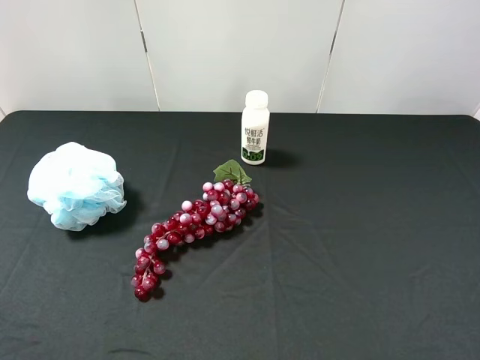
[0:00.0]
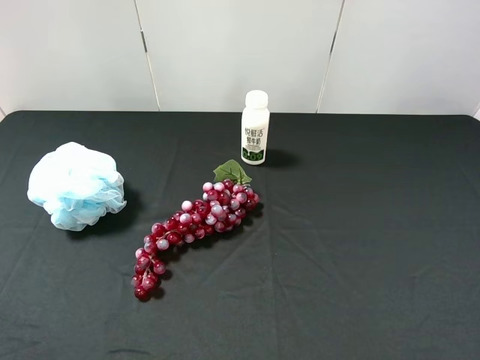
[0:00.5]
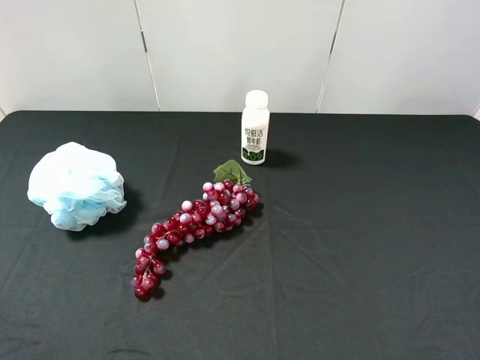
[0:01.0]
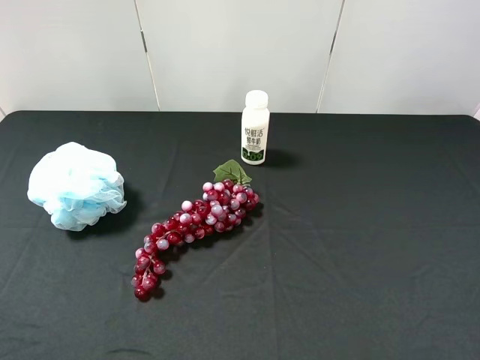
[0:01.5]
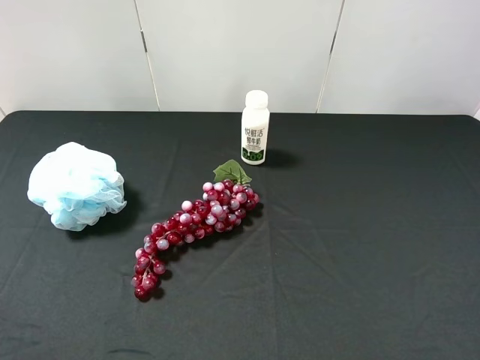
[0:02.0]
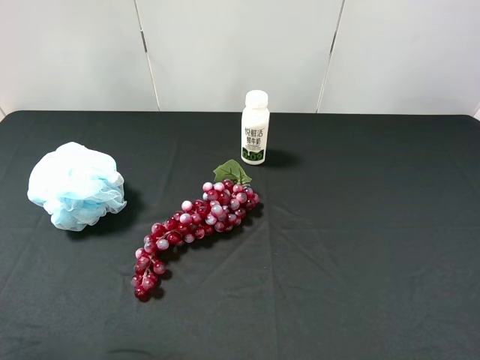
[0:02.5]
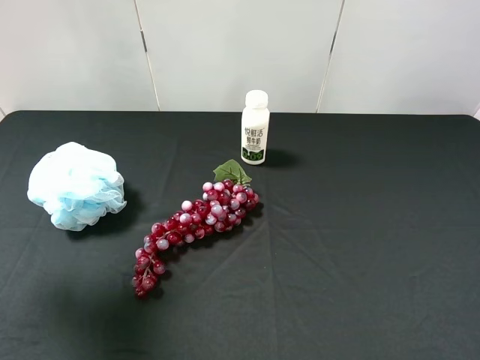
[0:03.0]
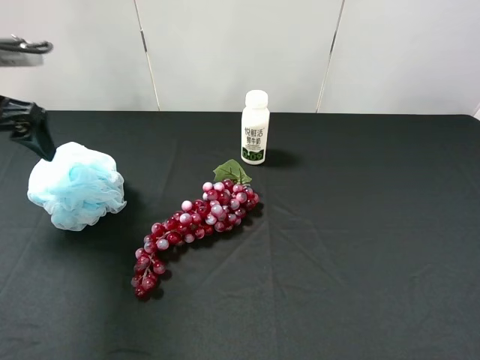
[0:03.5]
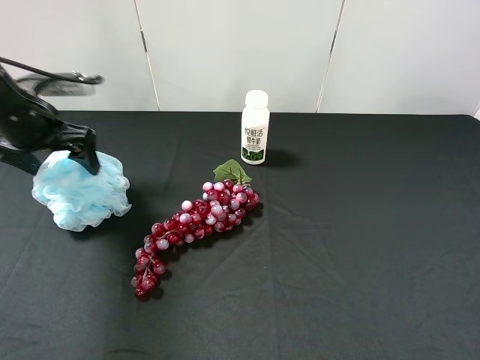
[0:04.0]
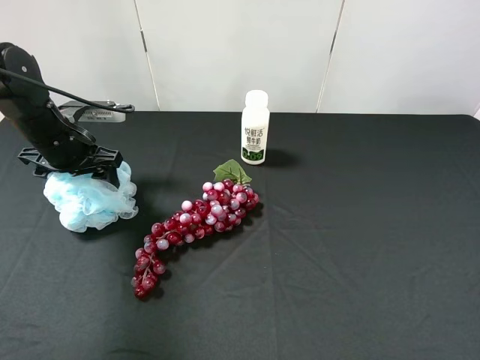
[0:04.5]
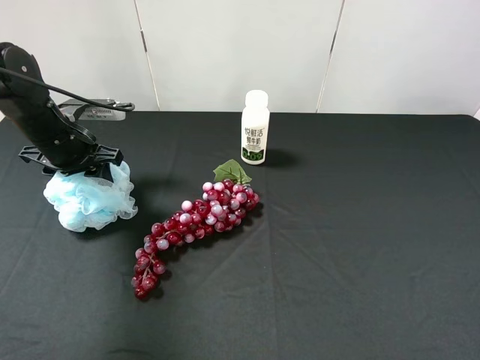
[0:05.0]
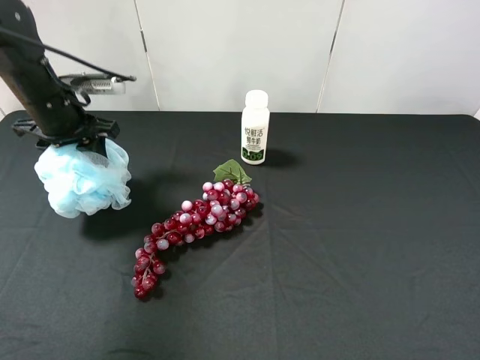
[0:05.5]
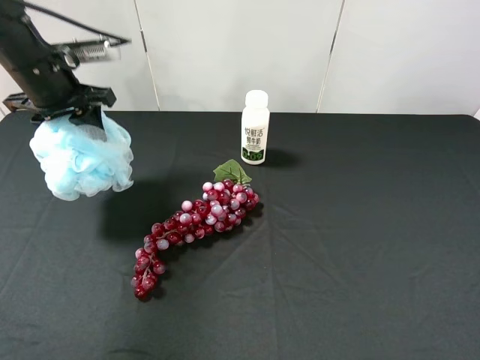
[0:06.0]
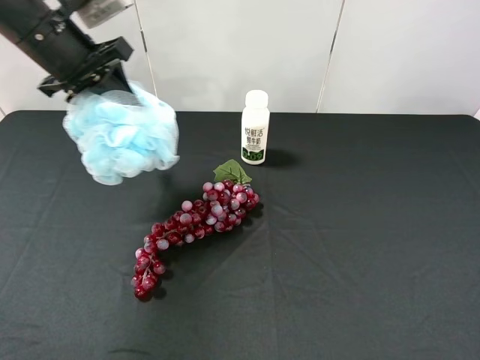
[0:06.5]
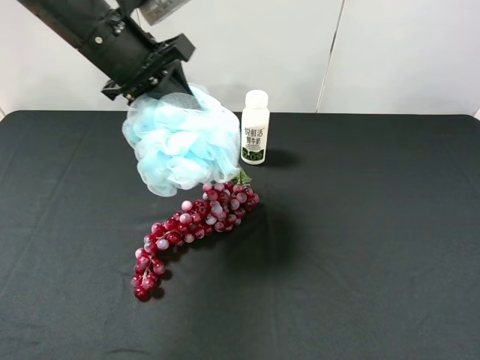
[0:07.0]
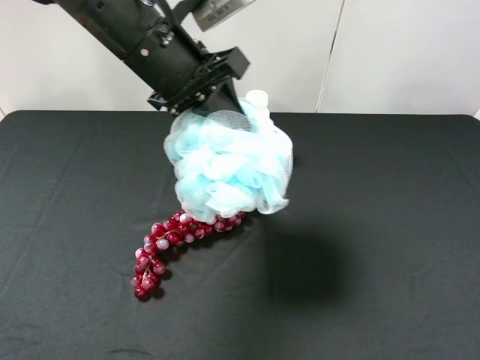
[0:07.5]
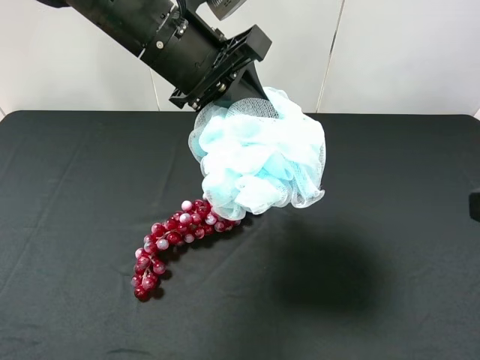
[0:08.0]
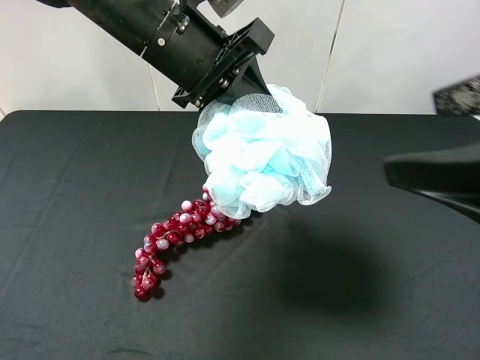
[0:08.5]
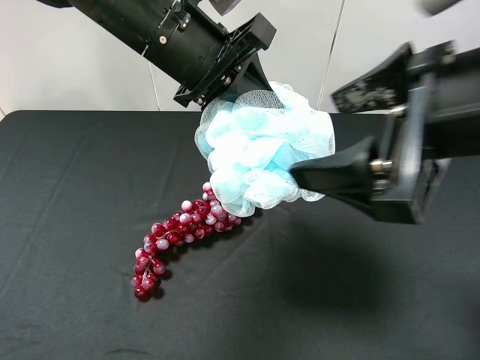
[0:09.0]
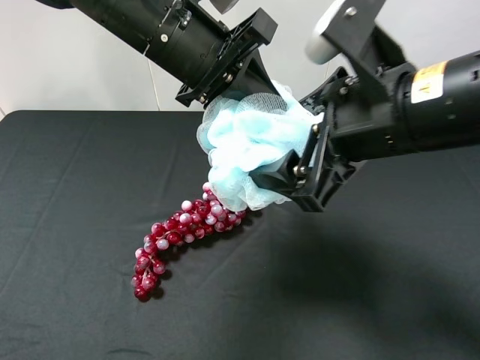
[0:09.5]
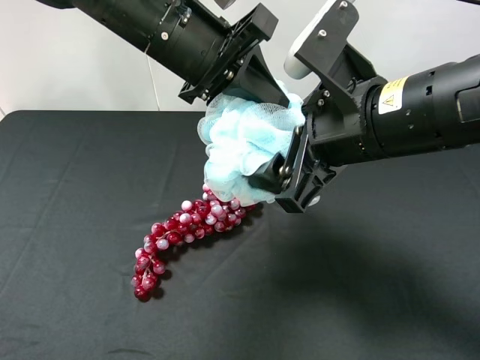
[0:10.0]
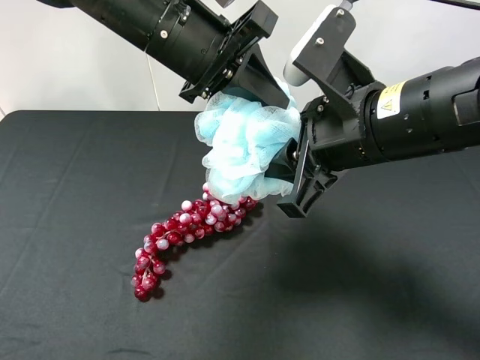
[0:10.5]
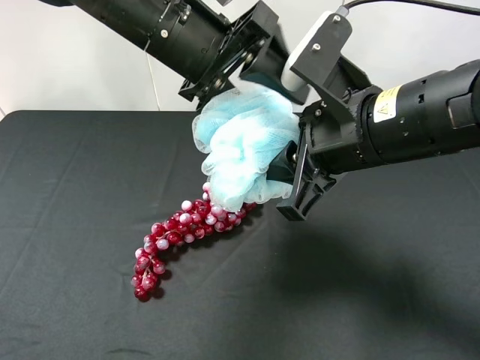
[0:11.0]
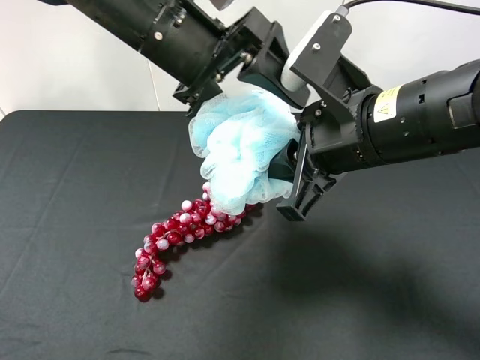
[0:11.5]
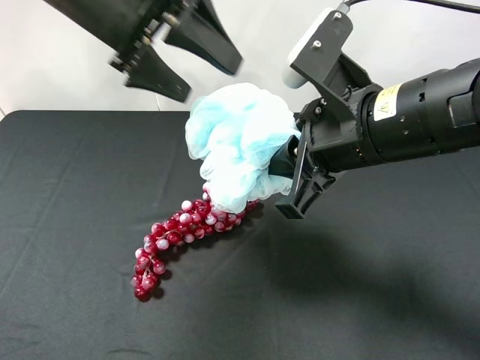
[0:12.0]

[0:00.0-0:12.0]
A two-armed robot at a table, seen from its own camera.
Task of the whole recording: use the left gripper to pick up the item and transfer it from the left gripper to the right gripper.
0:00.0 to 0:02.0: Both grippers stay put.
0:02.0 to 0:04.0: The left gripper heads forward, covering approximately 35 cm.
0:04.0 to 0:06.0: The left gripper is displaced upward by some 5 cm, and closes.
0:06.0 to 0:08.0: The right gripper ends up about 10 cm from where it was, while the left gripper heads to the right and backward, covering some 20 cm.
0:08.0 to 0:10.0: The right gripper heads to the left and forward, covering about 20 cm.
0:10.0 to 0:12.0: The right gripper closes, while the left gripper heads to the left, covering approximately 10 cm, and opens its fingers.

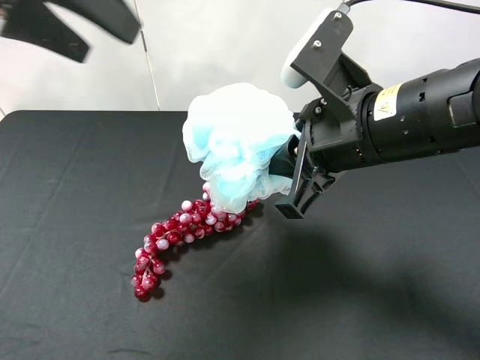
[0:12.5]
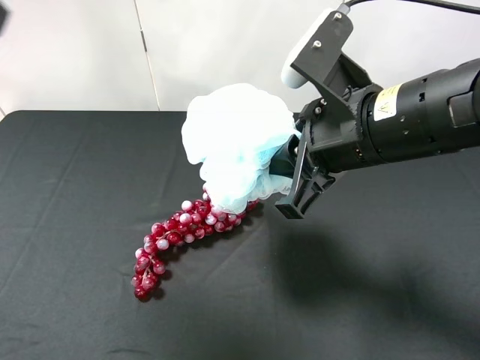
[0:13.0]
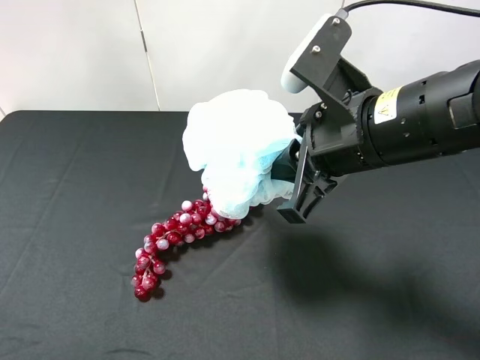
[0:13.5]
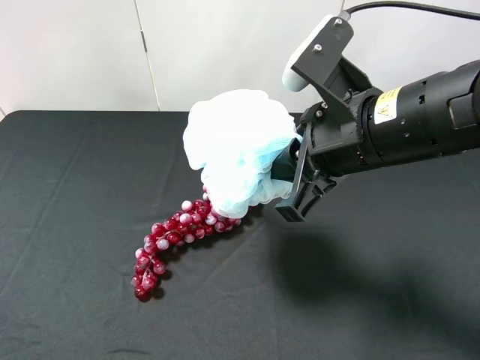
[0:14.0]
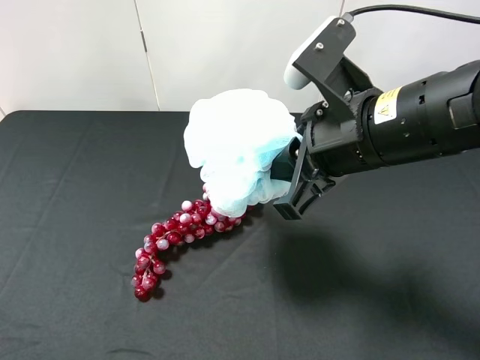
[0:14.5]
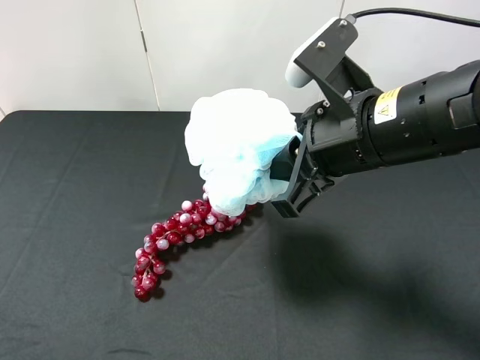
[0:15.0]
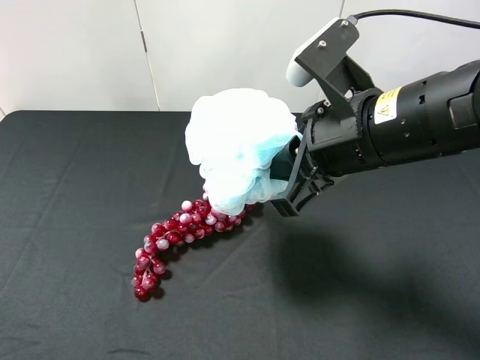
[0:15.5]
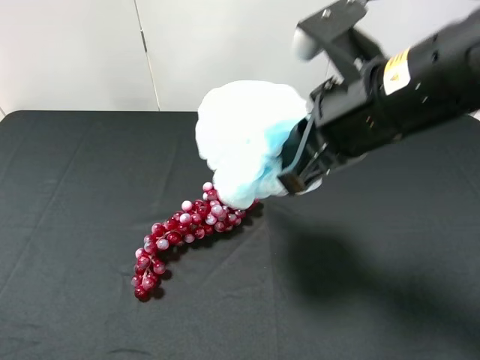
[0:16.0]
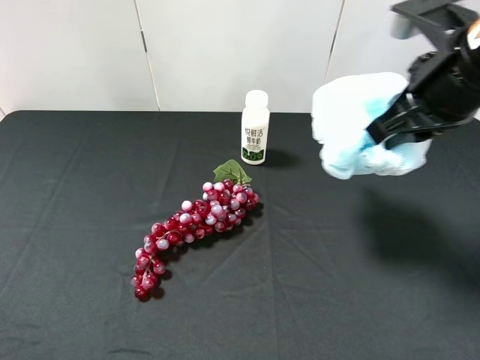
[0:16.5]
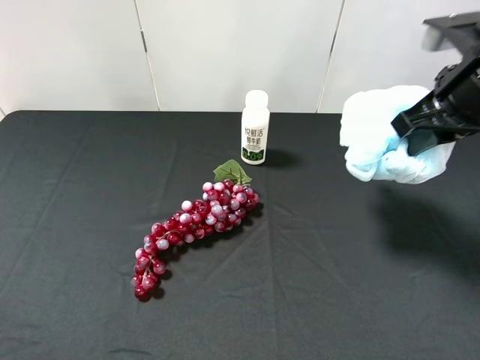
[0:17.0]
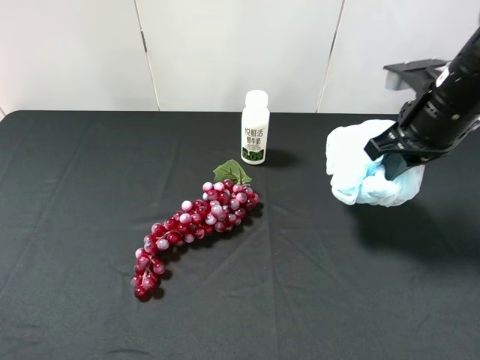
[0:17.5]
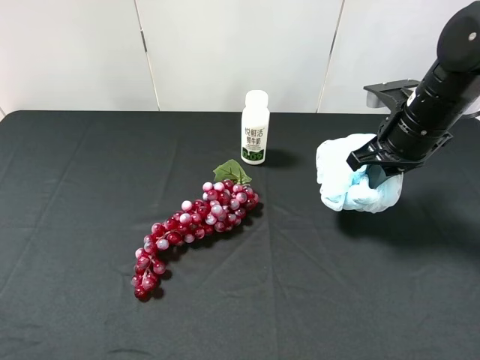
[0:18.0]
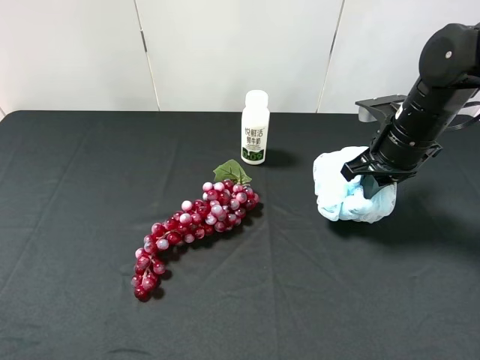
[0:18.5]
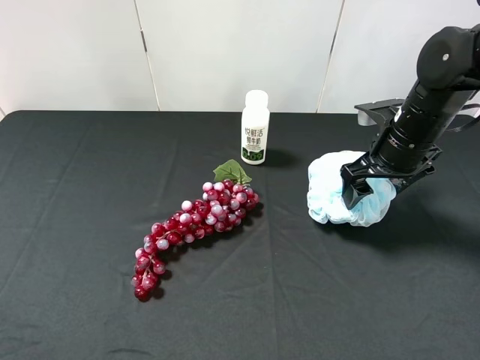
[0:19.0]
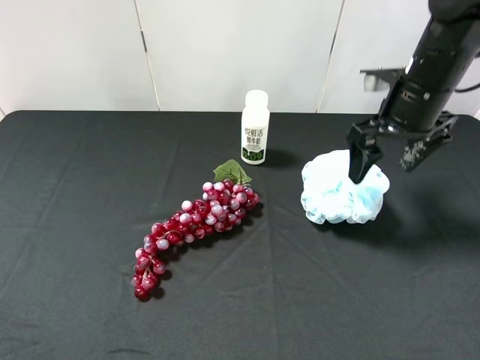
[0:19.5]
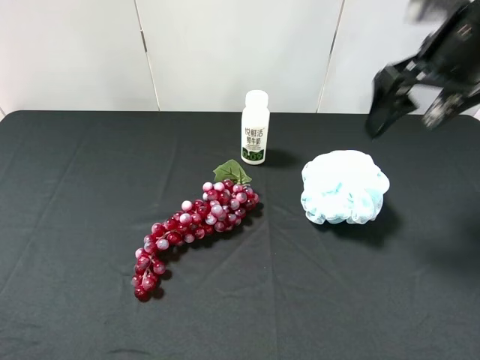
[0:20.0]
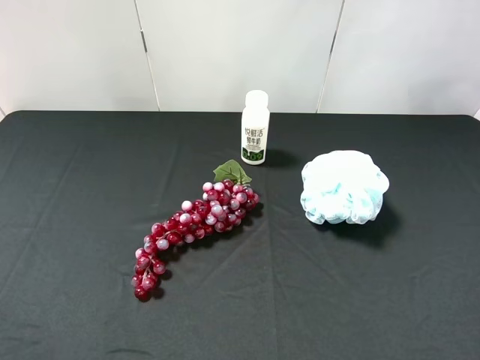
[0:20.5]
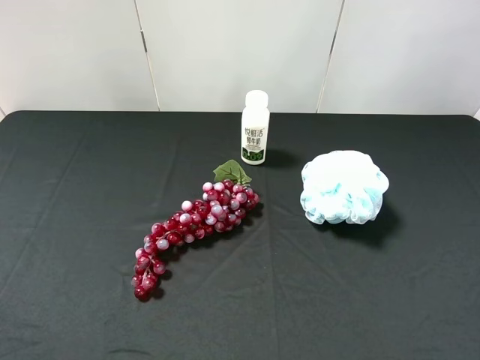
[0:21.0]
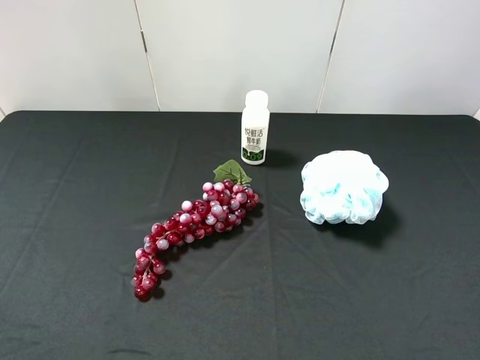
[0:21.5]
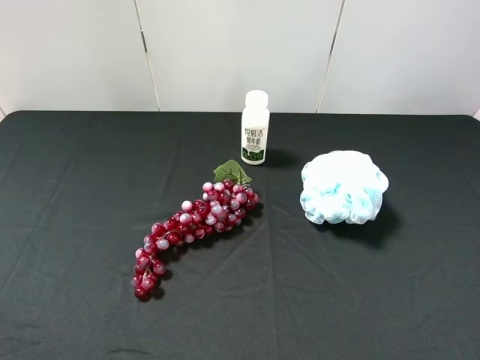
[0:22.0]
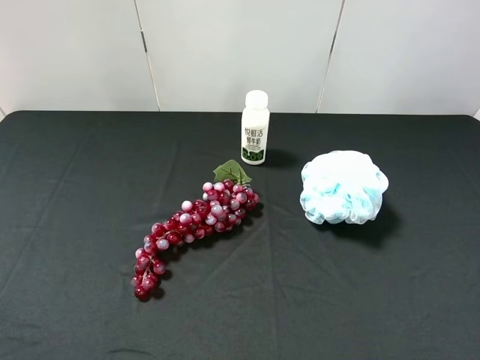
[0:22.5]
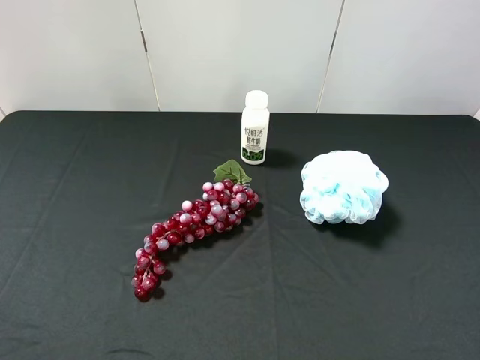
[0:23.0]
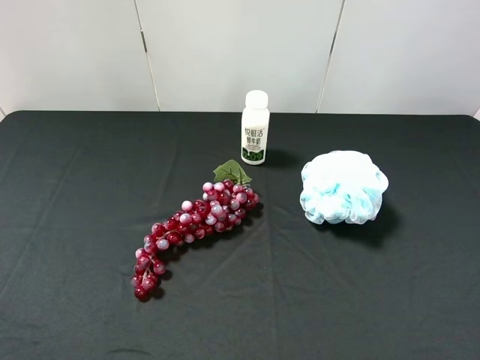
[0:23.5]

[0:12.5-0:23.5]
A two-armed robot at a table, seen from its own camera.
Task of the whole recording: use the left gripper to pick up the item and transfer it from the left gripper to the right gripper.
0:12.5 to 0:14.5: The left gripper goes approximately 25 cm backward and downward.
0:14.5 to 0:16.0: The grippers make only small movements.
0:16.0 to 0:18.0: The right gripper travels forward, to the right and downward by approximately 20 cm.
0:18.0 to 0:20.0: The right gripper goes about 15 cm upward, and opens its fingers.
0:20.0 to 0:21.5: The right gripper moves backward, about 25 cm.
